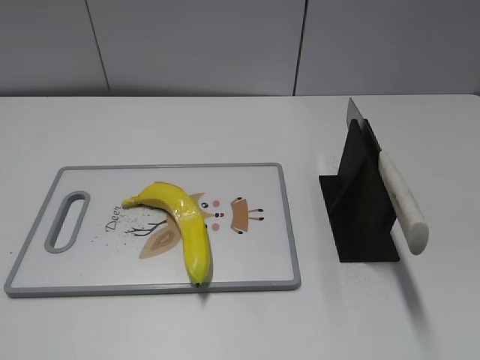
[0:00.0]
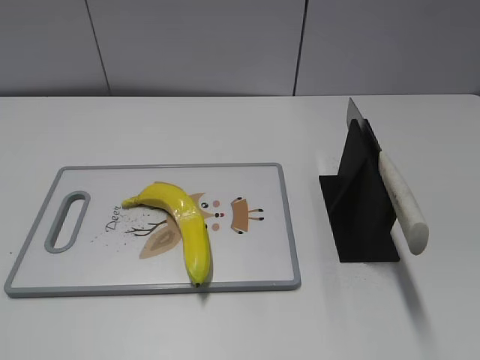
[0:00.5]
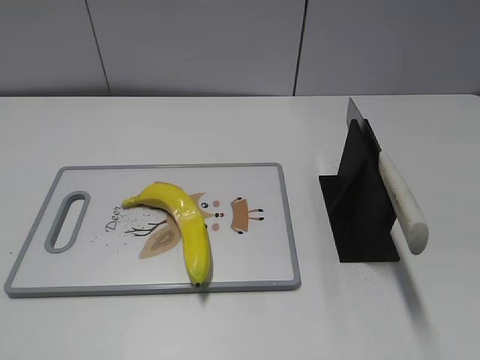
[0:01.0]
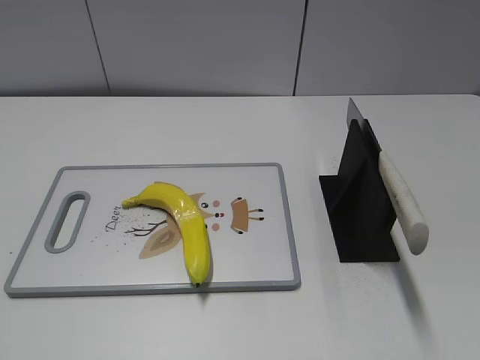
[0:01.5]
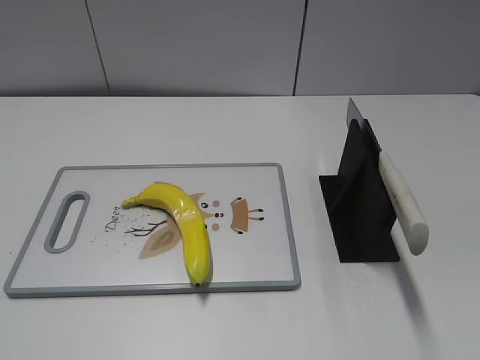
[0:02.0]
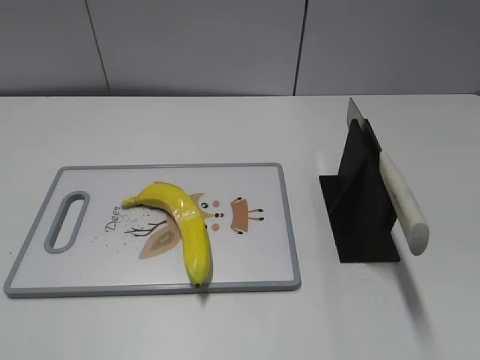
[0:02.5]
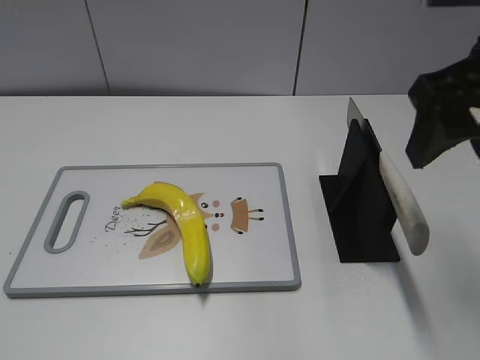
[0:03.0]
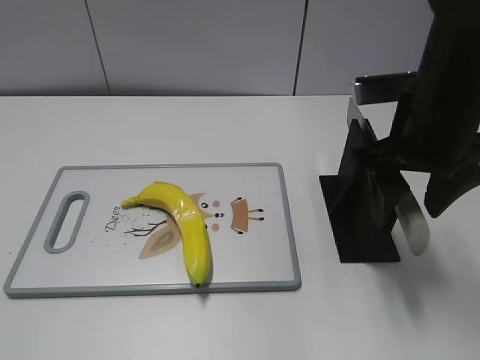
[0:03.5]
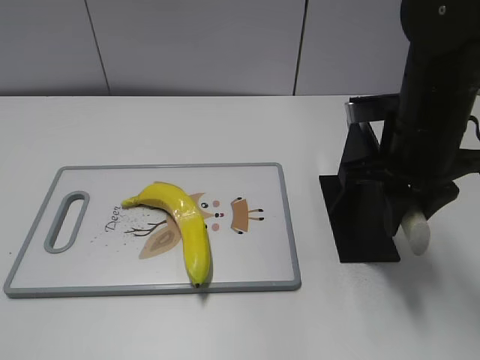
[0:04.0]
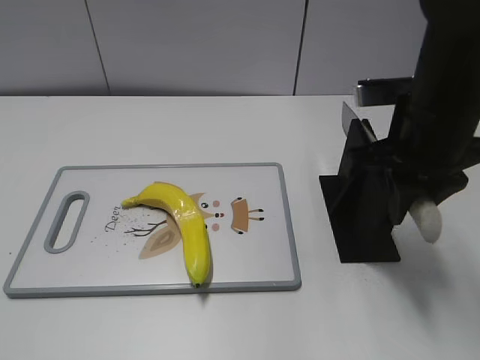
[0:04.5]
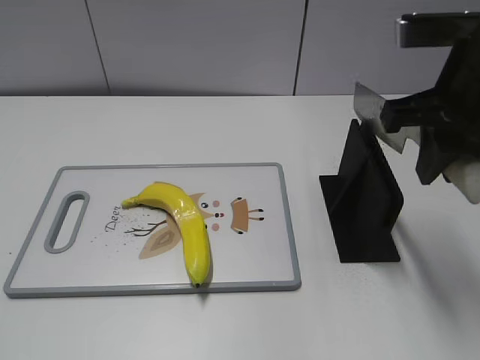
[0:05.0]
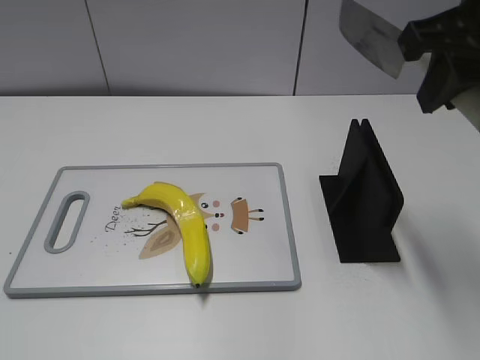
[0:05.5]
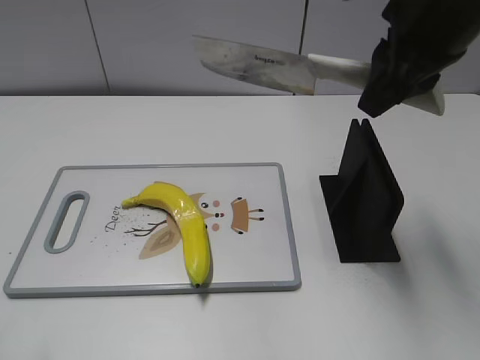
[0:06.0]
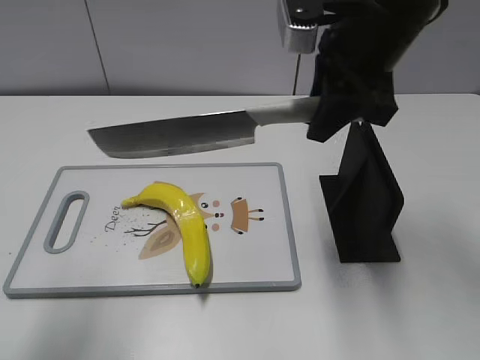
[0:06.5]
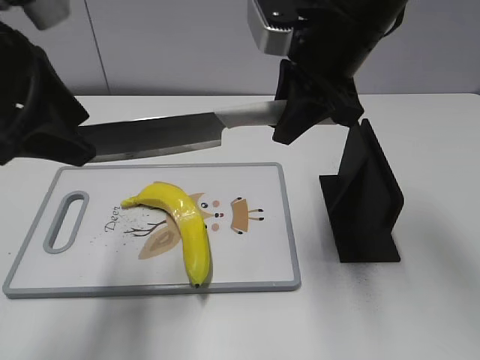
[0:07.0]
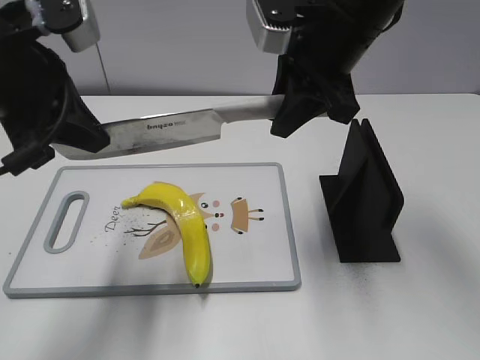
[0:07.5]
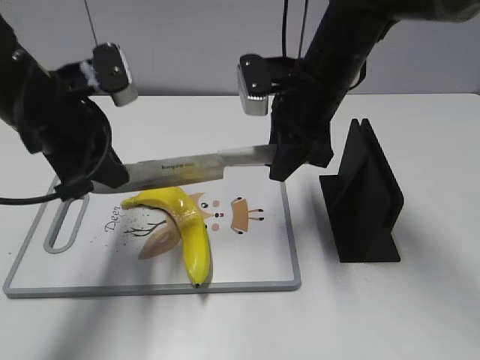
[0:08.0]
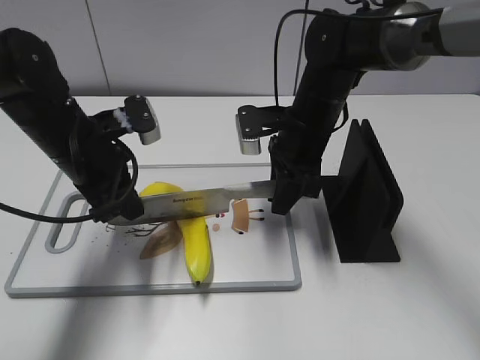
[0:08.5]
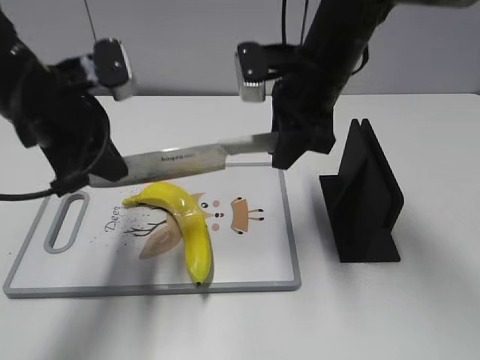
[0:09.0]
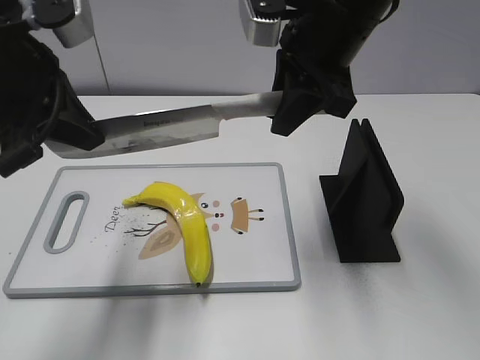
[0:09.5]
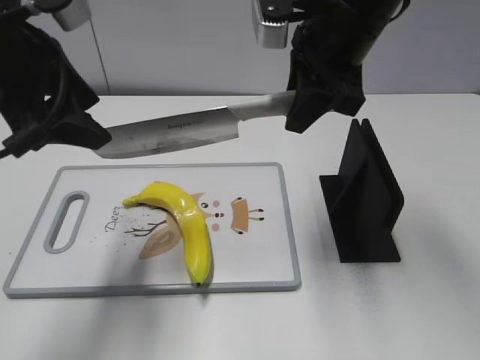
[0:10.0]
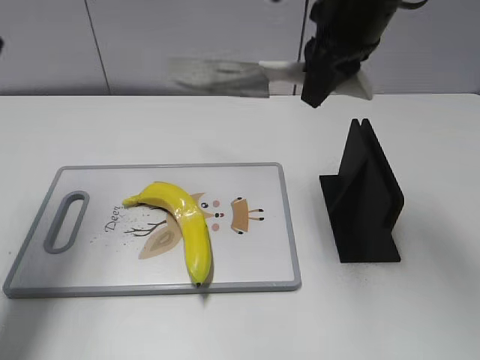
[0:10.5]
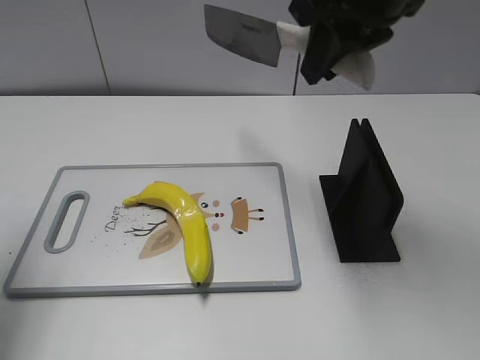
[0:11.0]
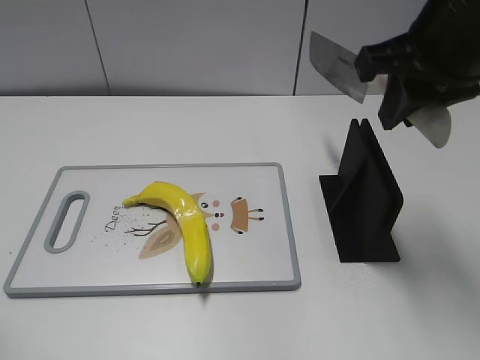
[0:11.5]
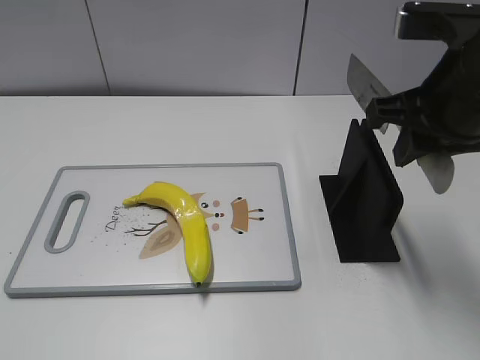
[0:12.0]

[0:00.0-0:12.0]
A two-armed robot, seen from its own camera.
Task of the whole recording: cut plastic banana.
Step, 0:00.0 to 0:05.0: Grab the knife handle with your right hand.
Step, 0:05.5 to 0:09.0: Lift the knife with your right hand.
Step, 0:09.5 to 0:10.5: Cut the banana with your left hand.
0:02.0 to 0:04.0: The right gripper moves forward, to the left and downward, roughly 25 cm, and closes.
0:04.0 to 0:06.0: The right gripper heads upward, covering roughly 10 cm; the left gripper travels forward by roughly 5 cm.
0:06.0 to 0:08.0: The left gripper heads forward, to the right and downward, covering some 30 cm, and closes its fingers, while the right gripper heads downward, forward and to the left, covering roughly 15 cm.
0:08.0 to 0:10.0: The two grippers go some 10 cm upward. The left gripper opens up.
0:10.0 to 0:12.0: The right gripper heads backward and to the right, covering roughly 10 cm; the left gripper moves backward and to the left, approximately 30 cm.

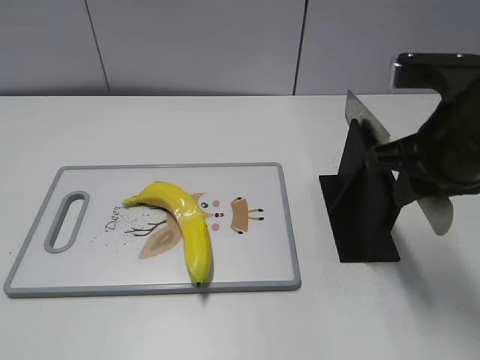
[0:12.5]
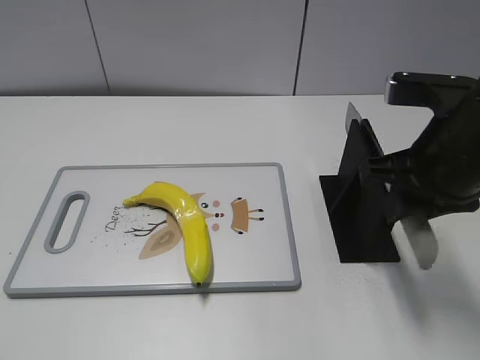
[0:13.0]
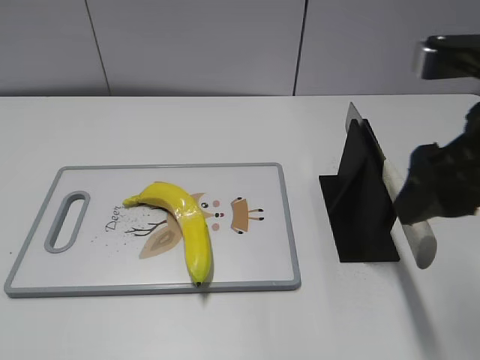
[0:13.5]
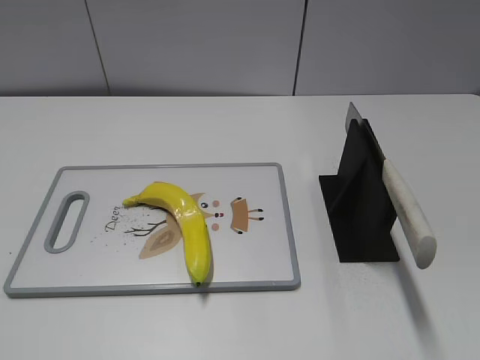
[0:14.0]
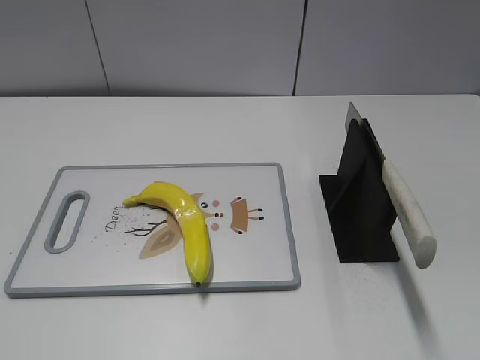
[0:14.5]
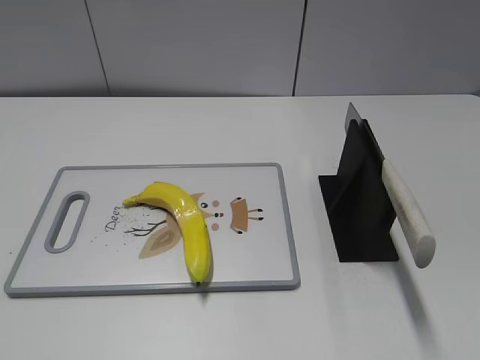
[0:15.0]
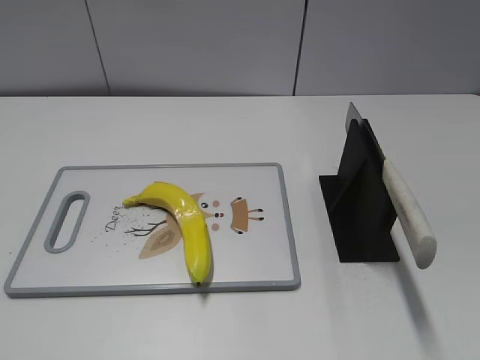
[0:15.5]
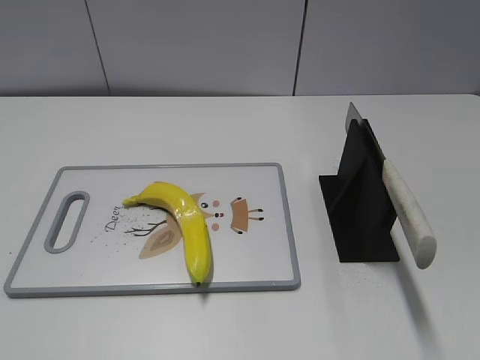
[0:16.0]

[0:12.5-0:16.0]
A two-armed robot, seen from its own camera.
Task of the whole recording: cut plastic banana.
Step, 0:12.5 to 0:16.0: Place the knife on the storage rack with your right hand.
0:12.5 to 0:14.5: The right gripper shifts roughly 25 cm backward and to the right, and opens.
